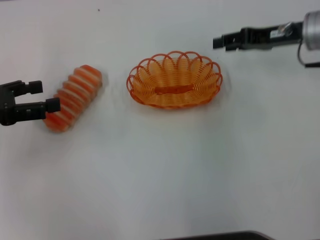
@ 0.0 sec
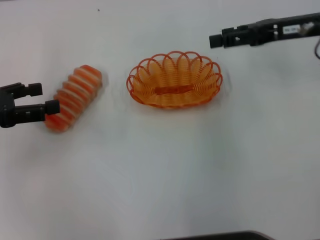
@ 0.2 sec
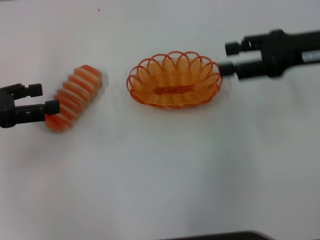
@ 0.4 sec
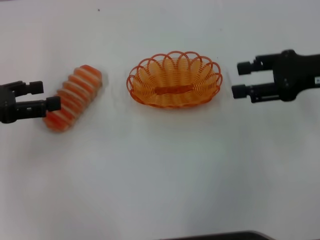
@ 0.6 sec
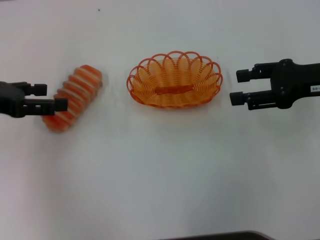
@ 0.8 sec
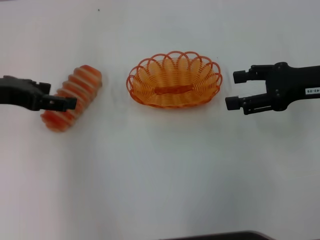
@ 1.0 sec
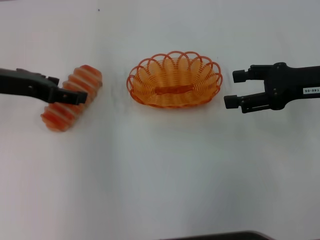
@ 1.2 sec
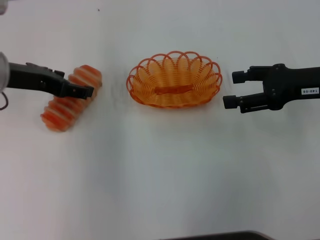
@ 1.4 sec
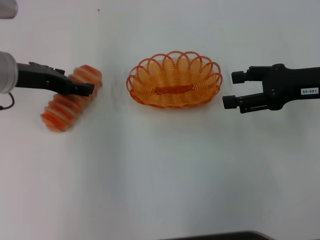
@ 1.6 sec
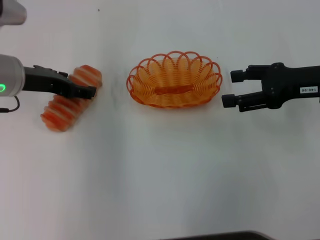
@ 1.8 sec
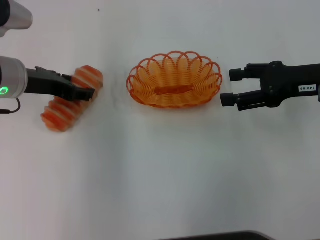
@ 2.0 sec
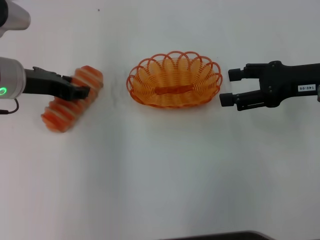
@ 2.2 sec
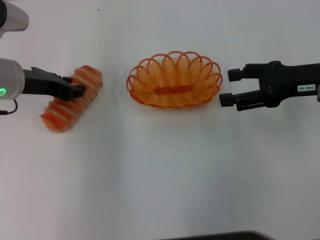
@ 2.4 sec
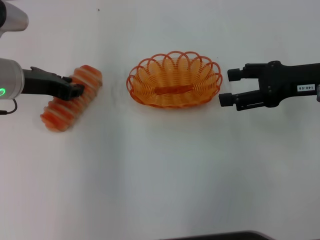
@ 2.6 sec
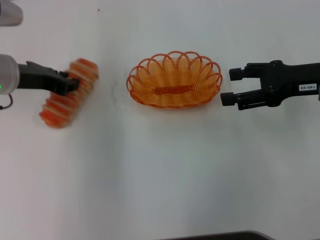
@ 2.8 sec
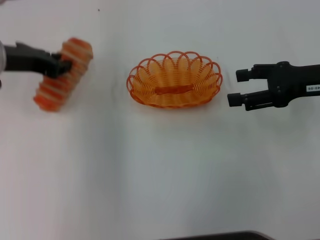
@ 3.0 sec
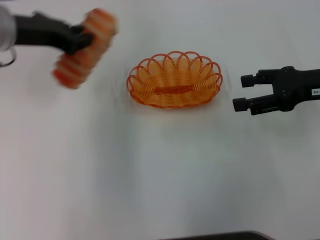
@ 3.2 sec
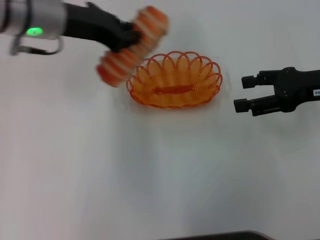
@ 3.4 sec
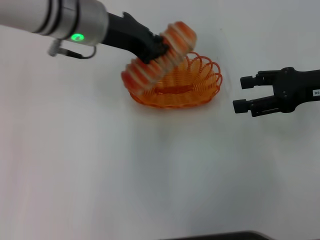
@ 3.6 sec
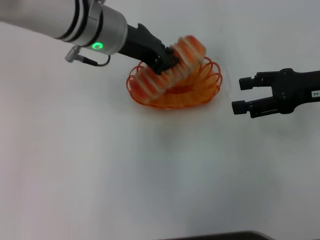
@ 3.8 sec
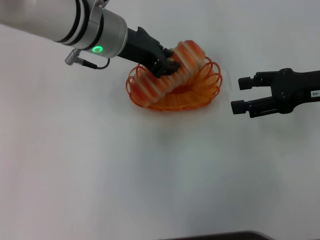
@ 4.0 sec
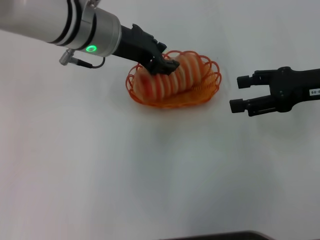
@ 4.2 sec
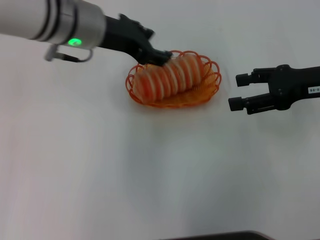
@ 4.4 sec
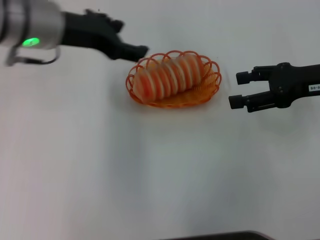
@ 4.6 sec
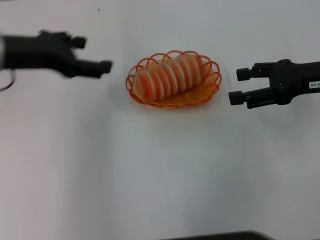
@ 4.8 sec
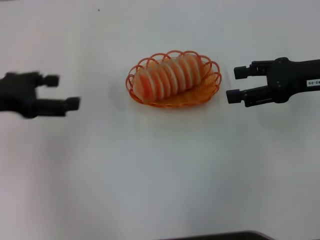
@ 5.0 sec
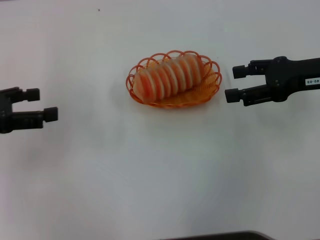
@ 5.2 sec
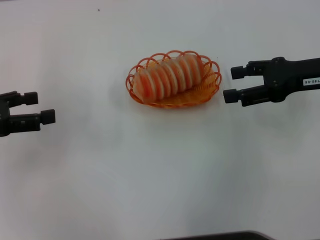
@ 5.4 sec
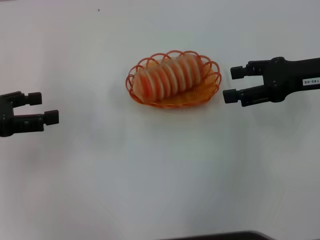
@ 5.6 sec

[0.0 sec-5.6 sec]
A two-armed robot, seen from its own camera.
Step, 0.0 sec to 2.8 sec: Pick up the long bread with the left gripper.
Step, 3.0 sec to 4.2 sec: Place the long bread into the basket with the left gripper.
0.0 sec to 1.4 sec: The left gripper goes some 10 cm to the right and forward. Meanwhile the right gripper travels backward by about 10 cm, and opens up.
1.4 sec to 2.8 sec: The left gripper closes.
2.8 sec to 4.2 sec: The left gripper goes roughly 15 cm to the right.
4.2 sec to 5.6 sec: The left gripper goes roughly 25 cm to the left and backward, and opens up.

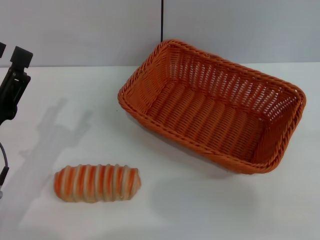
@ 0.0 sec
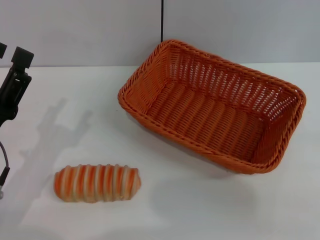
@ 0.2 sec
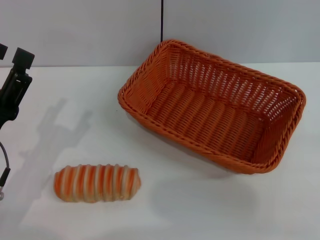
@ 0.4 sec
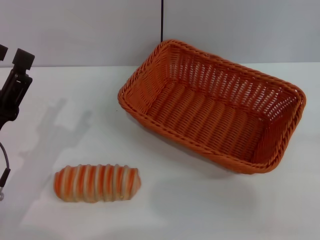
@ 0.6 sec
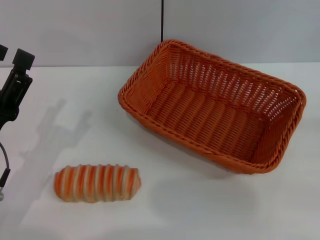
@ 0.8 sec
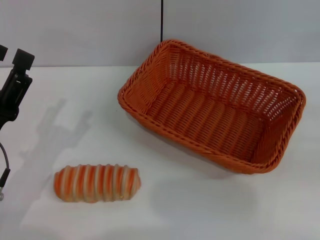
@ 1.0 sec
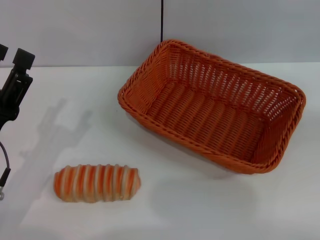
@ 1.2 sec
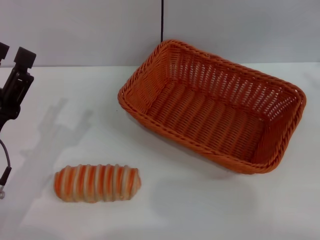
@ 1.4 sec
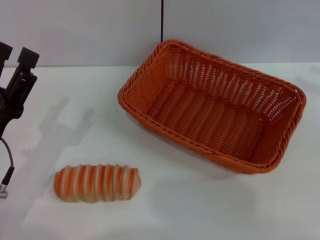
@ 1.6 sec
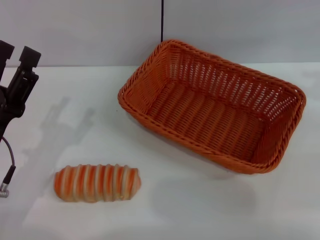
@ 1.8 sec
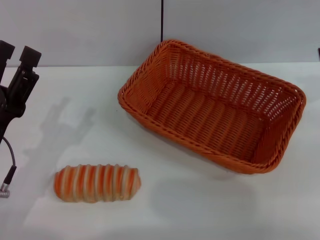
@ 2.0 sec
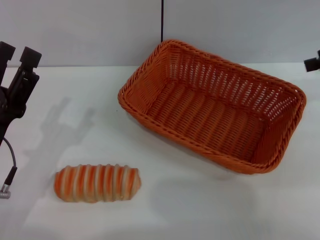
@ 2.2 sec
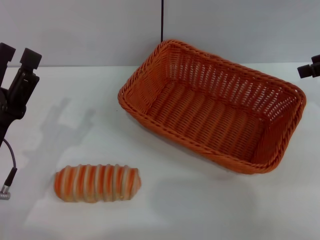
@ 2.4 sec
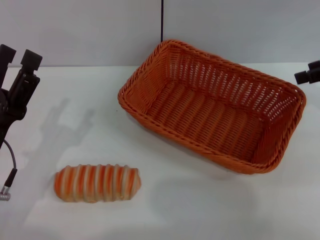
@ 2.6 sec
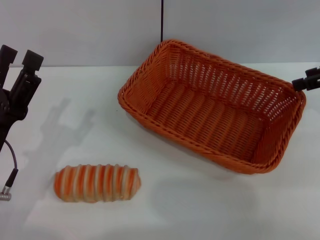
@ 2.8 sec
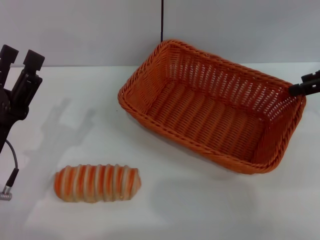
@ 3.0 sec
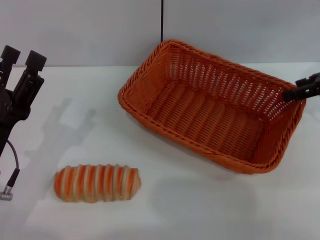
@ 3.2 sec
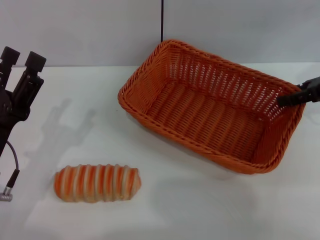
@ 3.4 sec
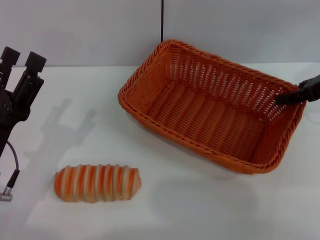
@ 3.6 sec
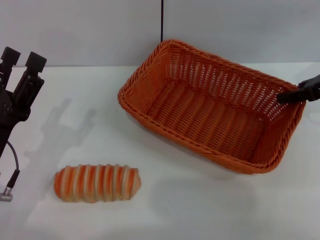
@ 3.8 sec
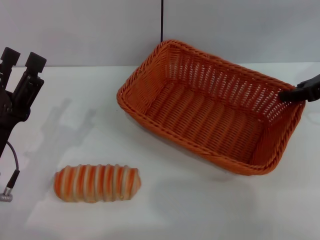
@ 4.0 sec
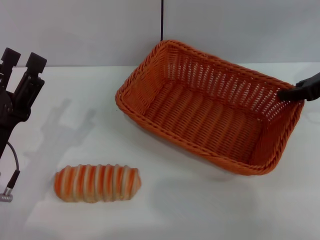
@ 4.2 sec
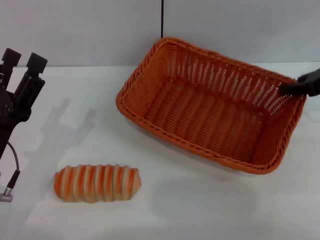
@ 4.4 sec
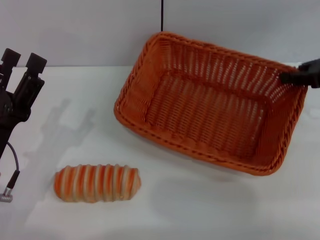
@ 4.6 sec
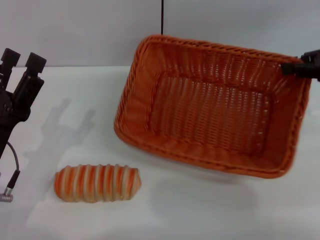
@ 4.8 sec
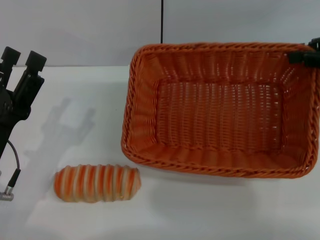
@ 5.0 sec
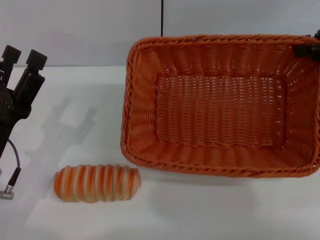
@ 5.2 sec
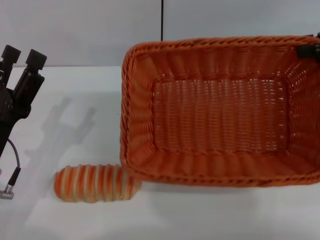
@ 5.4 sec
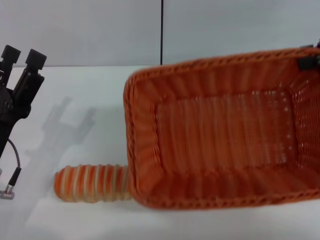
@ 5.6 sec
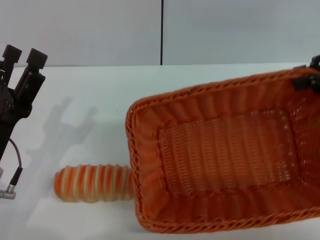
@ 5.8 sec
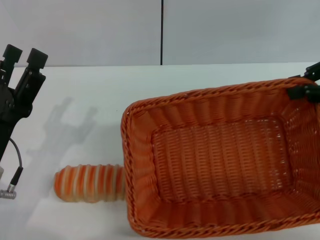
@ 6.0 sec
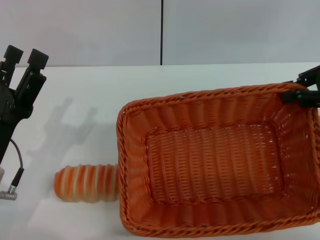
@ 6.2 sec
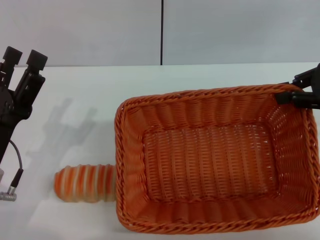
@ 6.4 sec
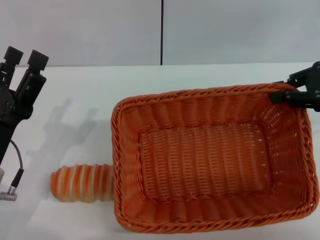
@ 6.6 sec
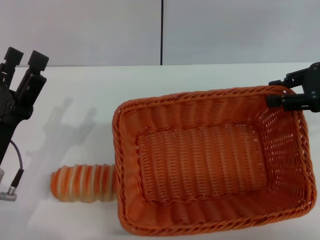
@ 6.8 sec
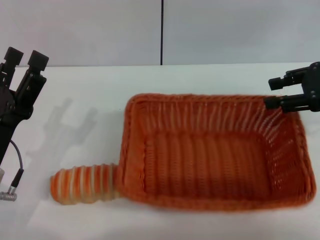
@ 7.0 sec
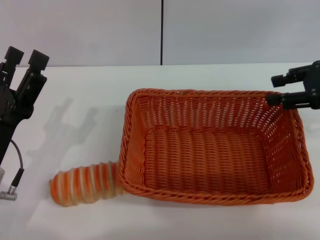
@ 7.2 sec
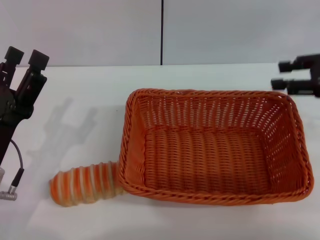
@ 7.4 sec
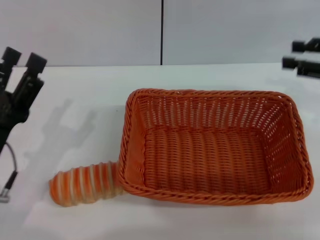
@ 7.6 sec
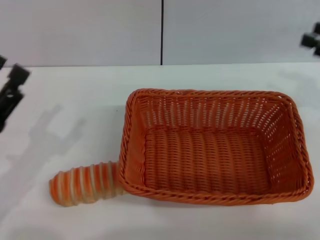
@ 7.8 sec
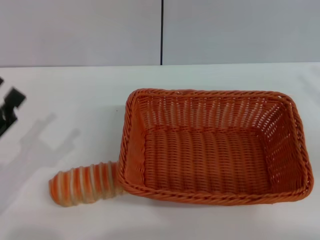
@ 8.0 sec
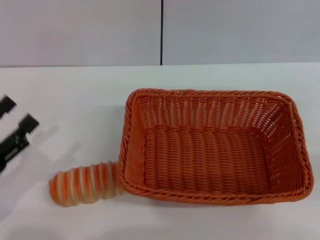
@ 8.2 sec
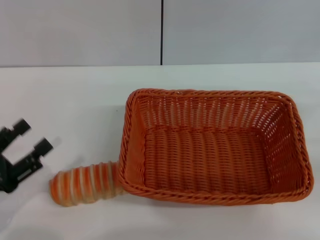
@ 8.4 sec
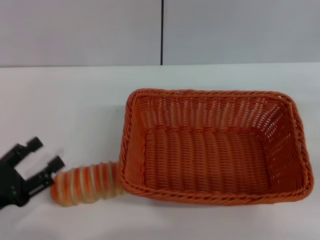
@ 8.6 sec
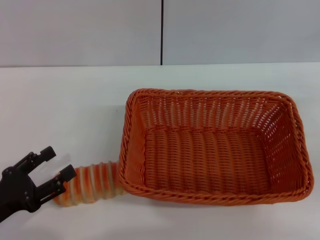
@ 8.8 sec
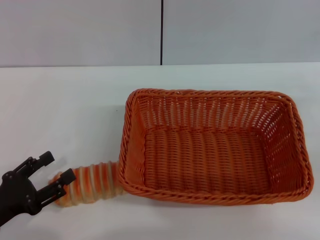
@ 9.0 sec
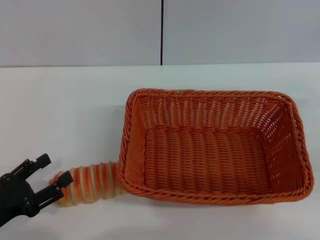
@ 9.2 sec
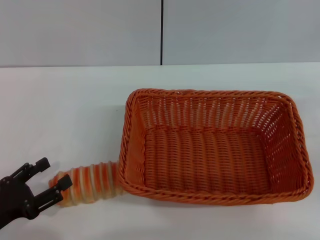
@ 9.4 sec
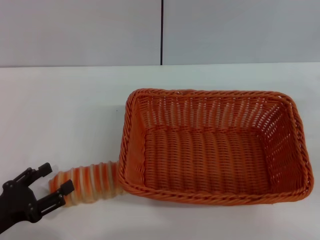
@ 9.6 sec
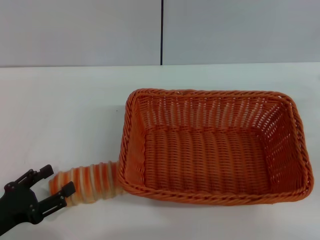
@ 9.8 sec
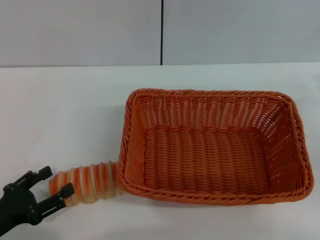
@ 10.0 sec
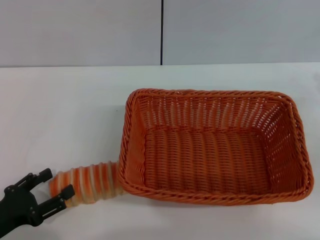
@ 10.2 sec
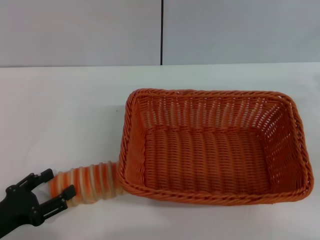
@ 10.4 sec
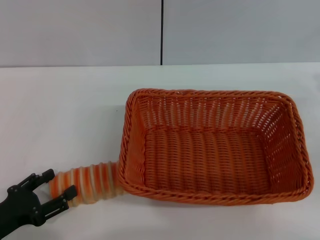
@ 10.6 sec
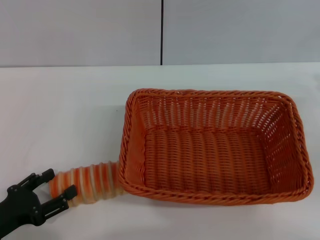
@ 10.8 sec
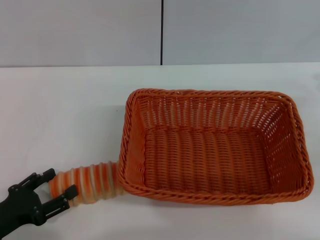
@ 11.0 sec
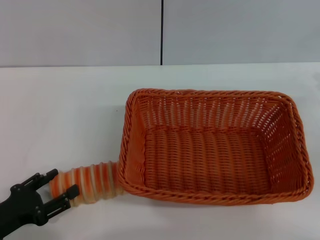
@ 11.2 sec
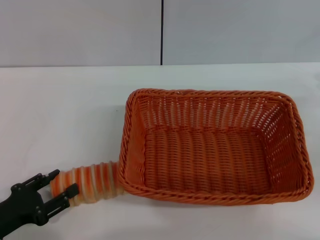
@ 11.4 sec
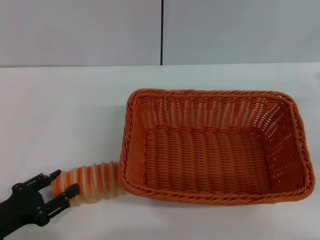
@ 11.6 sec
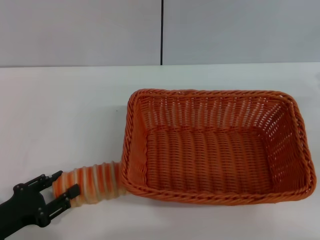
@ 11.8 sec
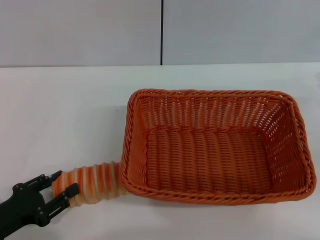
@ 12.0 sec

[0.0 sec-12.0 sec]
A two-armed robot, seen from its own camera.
Step, 0.0 sec to 5.0 sec: Pick up the light basket with the right gripper.
Step, 5.2 sec to 7.2 sec: Place the light basket in the center of view with the right gripper.
1.6 sec to 3.0 sec: The right gripper shifts some 10 cm downward, to the left and forward.
3.0 sec to 4.4 sec: The right gripper closes its fingers.
4.4 sec to 6.0 sec: The right gripper heads upward, covering roughly 5 cm.
6.0 sec to 7.6 sec: The right gripper moves roughly 5 cm, and opens up.
7.6 sec to 9.0 sec: The left gripper travels to the left by about 5 cm. Meanwhile the right gripper heads downward and backward, covering roughly 10 cm.
9.0 sec to 10.4 sec: The grippers move only a little.
10.4 sec to 12.0 sec: The two grippers keep their place.

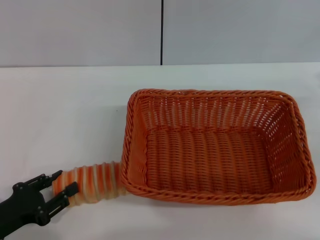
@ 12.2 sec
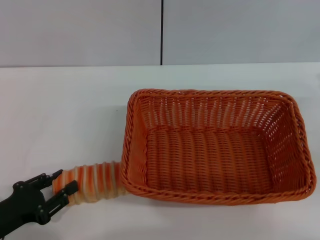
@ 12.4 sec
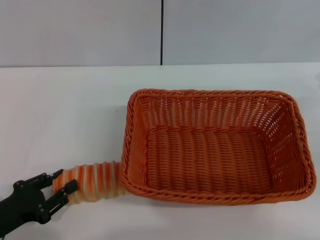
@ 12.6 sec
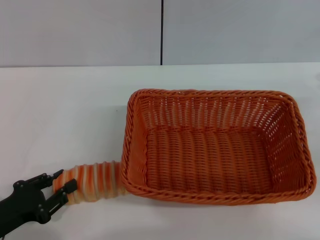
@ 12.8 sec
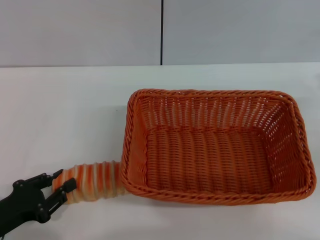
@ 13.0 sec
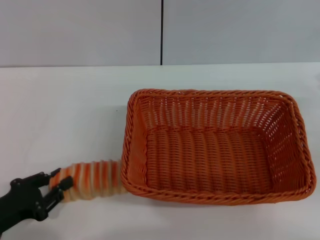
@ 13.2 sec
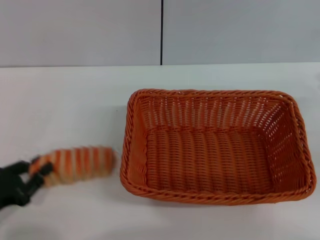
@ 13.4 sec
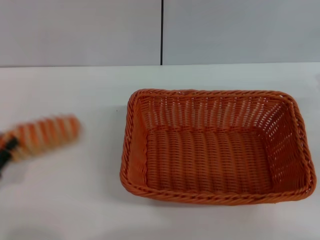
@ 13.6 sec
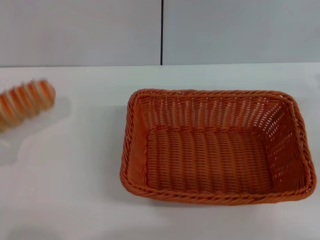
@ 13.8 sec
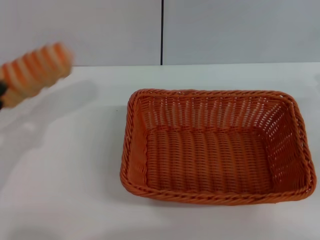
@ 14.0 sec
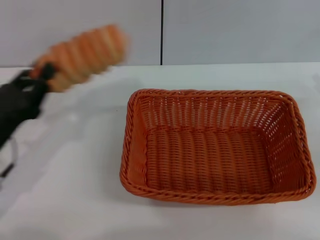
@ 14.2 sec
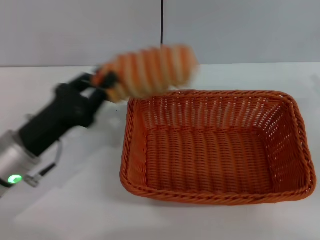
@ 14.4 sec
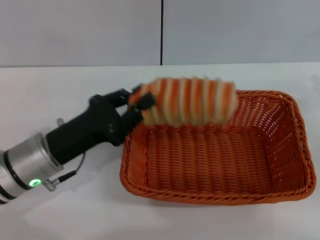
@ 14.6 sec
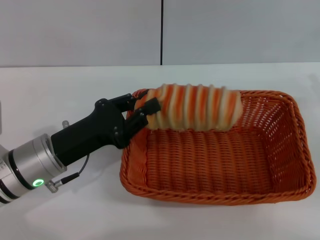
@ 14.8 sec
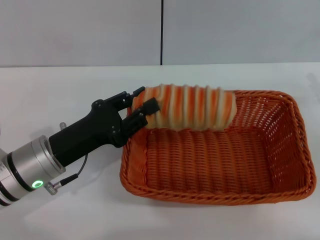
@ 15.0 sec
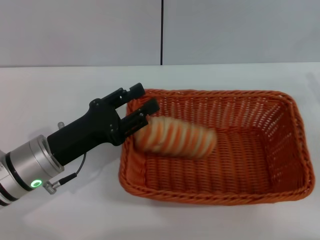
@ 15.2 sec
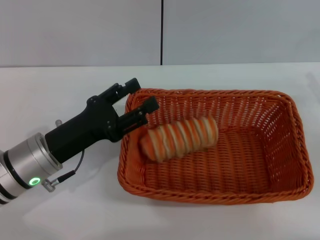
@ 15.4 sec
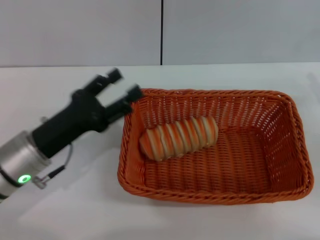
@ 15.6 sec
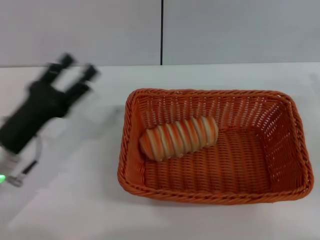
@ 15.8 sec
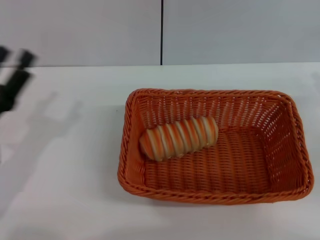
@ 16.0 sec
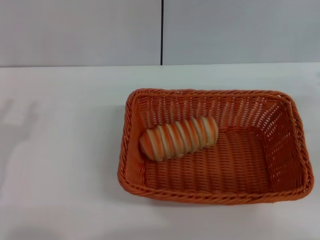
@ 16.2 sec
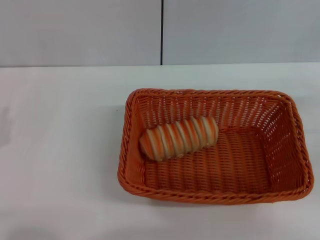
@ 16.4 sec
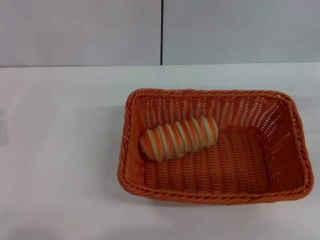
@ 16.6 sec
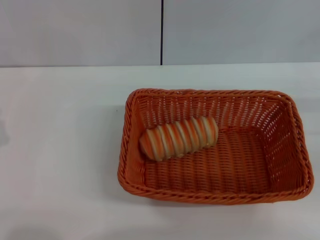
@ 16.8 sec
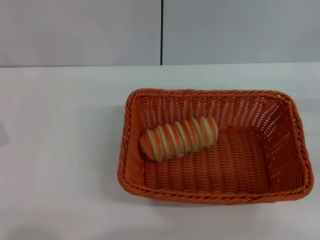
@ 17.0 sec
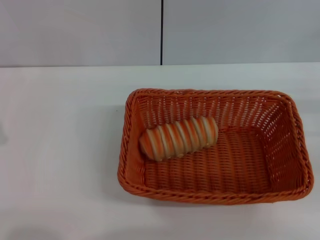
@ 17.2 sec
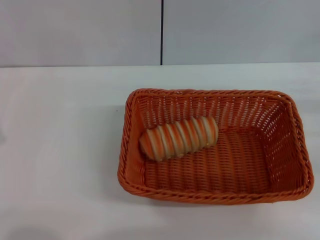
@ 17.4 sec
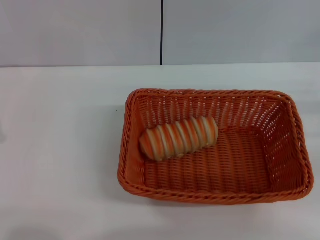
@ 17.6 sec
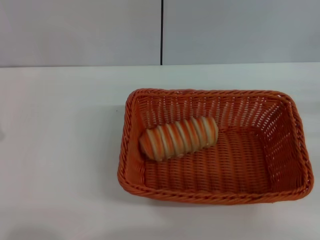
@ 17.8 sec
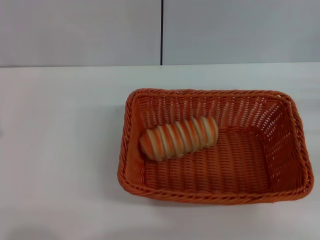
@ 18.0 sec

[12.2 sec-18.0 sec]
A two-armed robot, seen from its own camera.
Step, 14.0 sec to 15.4 sec: Place the long bread into the light basket with the left gripper.
12.2 sec to 13.6 sec: The left gripper ends up about 5 cm from where it was.
13.6 sec to 15.0 sec: The left gripper heads to the right and forward, covering approximately 15 cm.
15.0 sec to 16.6 sec: The left gripper goes approximately 15 cm to the left and backward, and opens, then closes once more.
